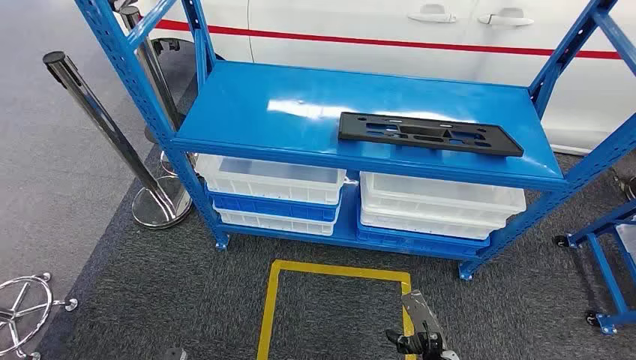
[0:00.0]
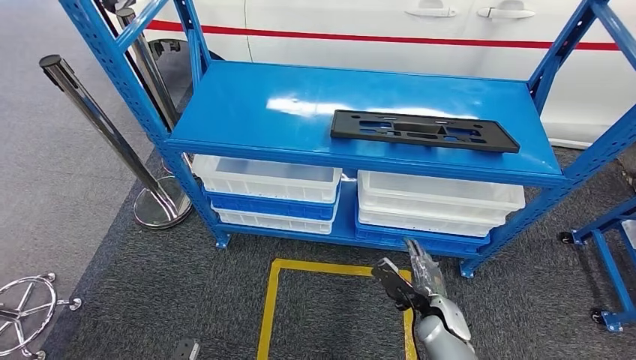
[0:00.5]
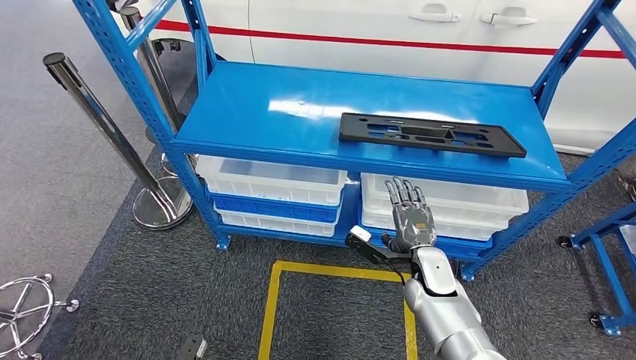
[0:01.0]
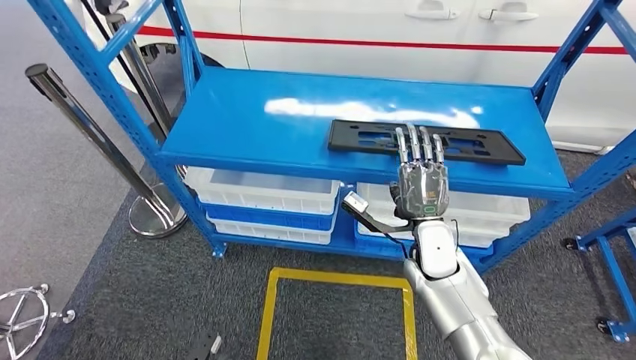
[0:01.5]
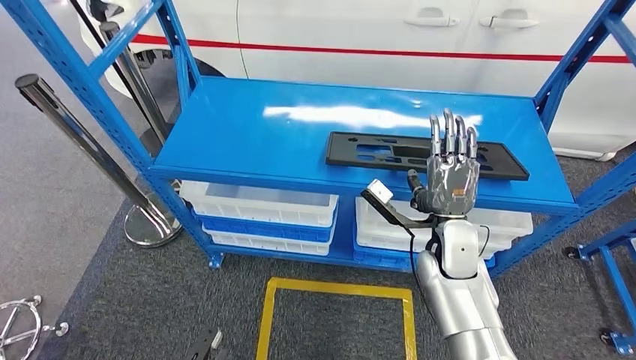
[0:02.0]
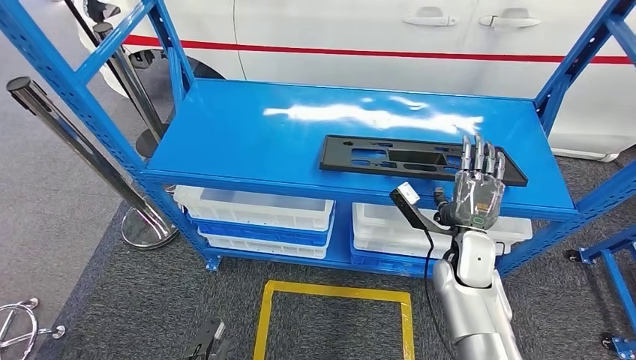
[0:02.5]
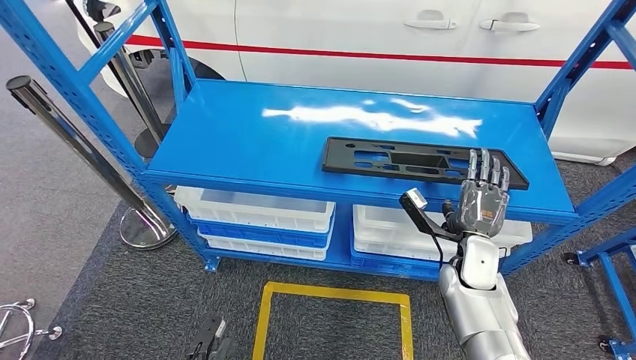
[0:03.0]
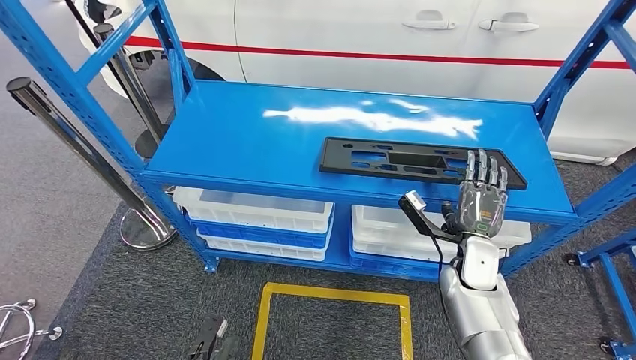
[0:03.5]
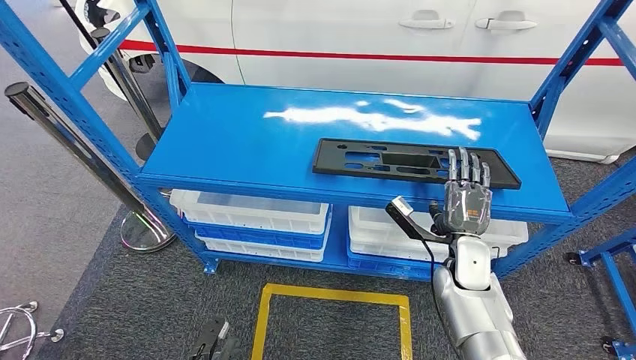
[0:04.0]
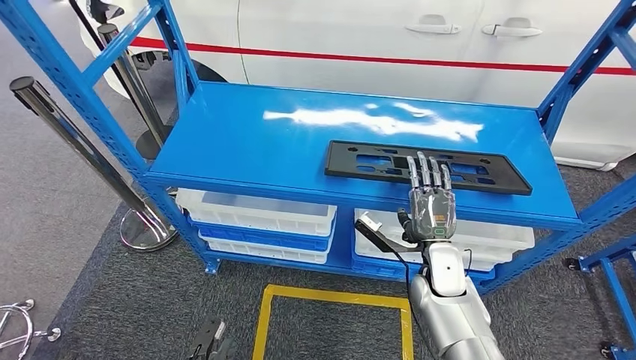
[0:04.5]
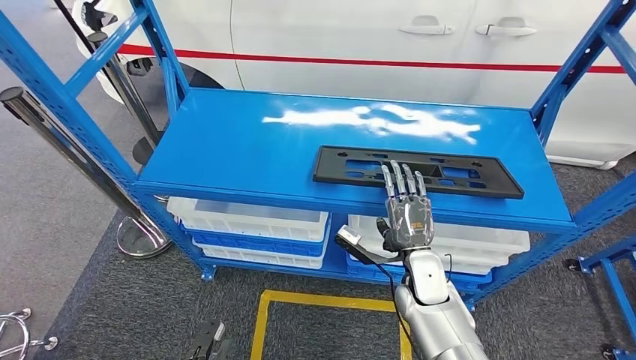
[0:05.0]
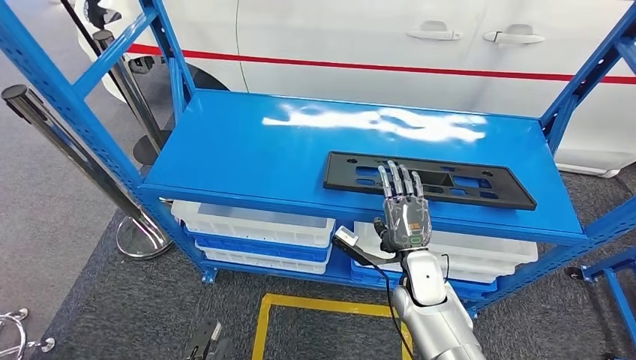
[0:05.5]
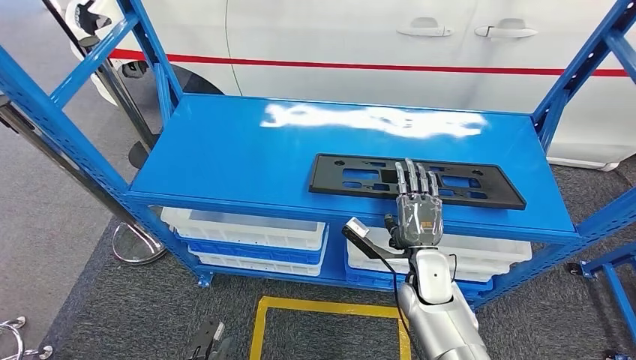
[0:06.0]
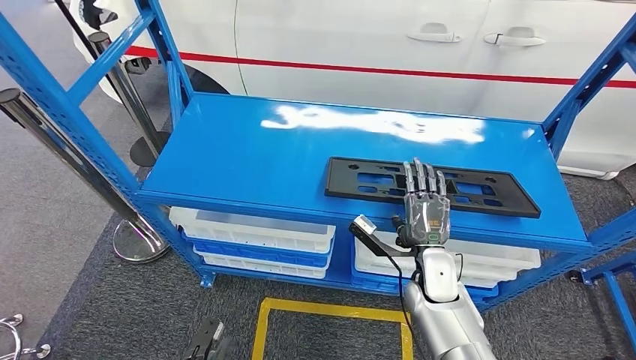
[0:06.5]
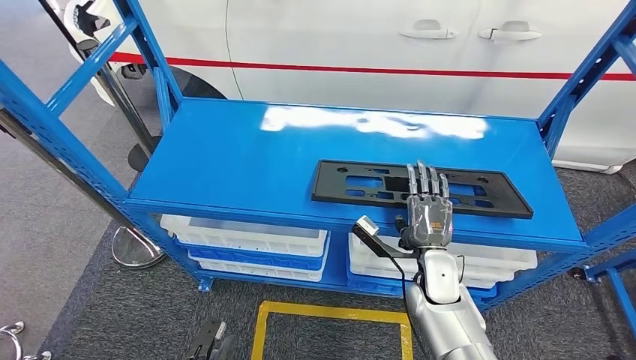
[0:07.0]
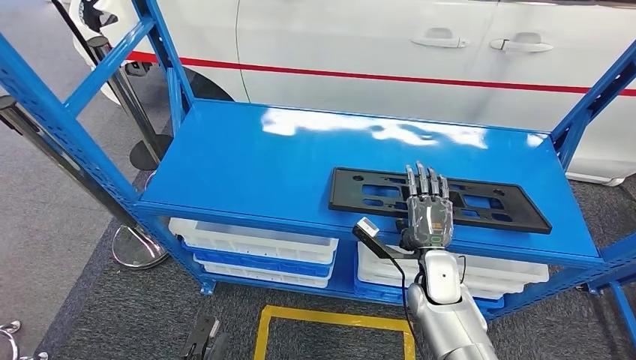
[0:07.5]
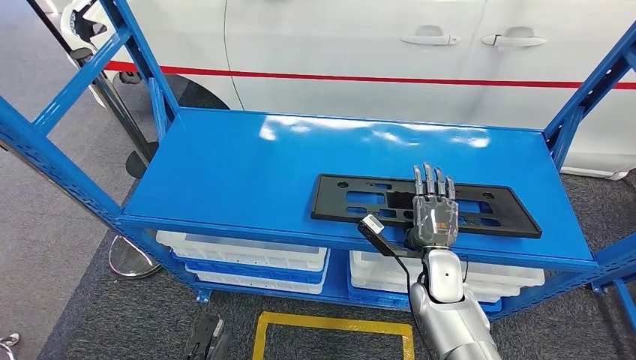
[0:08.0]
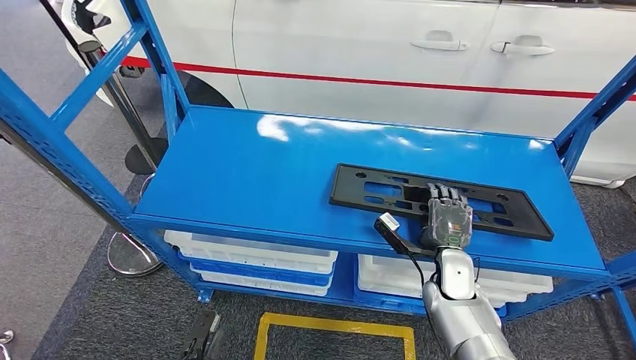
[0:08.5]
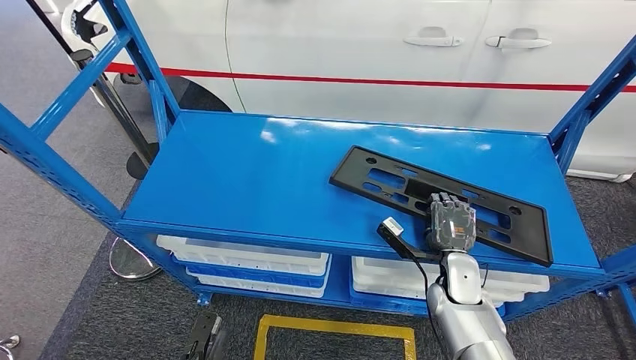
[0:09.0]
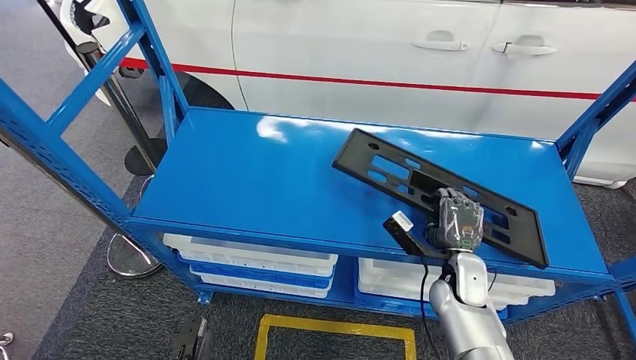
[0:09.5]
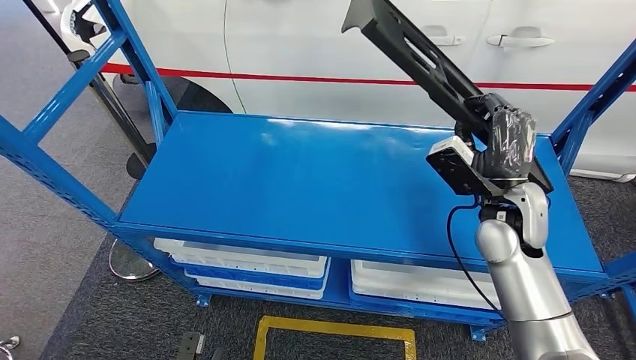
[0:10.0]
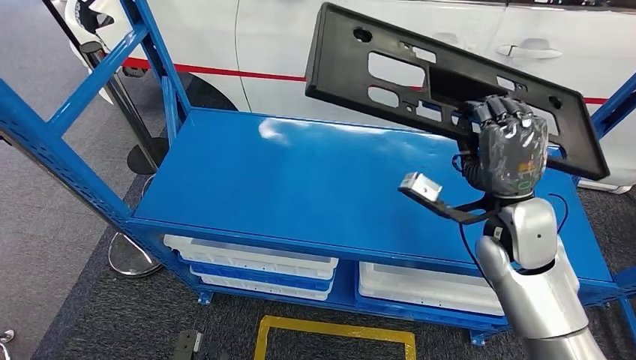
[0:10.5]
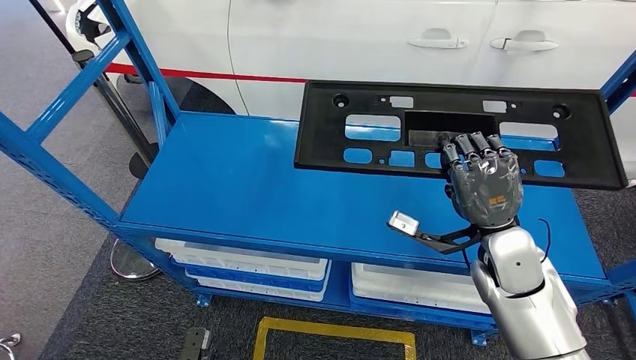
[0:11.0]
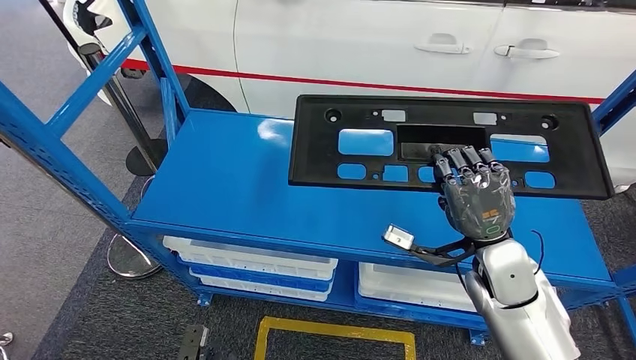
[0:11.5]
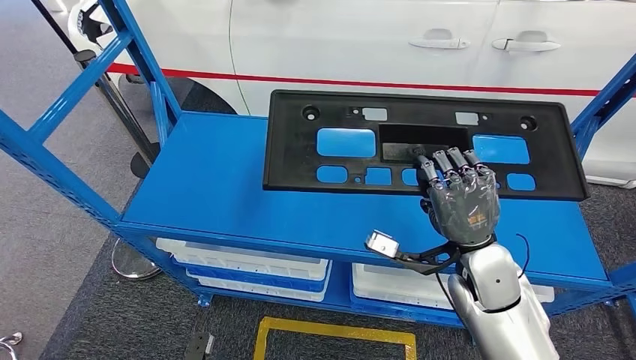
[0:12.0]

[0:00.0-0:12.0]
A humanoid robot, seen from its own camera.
Step, 0:00.0 to 0:10.5: Pick up the large material from the shelf.

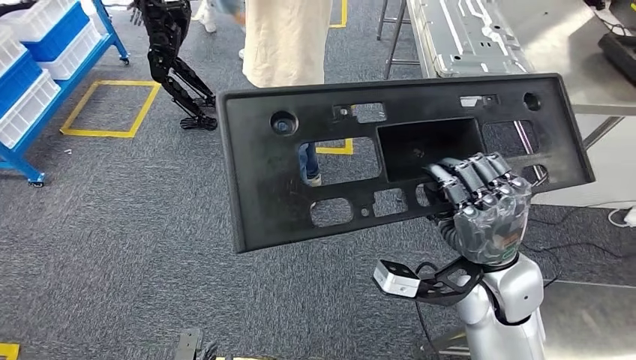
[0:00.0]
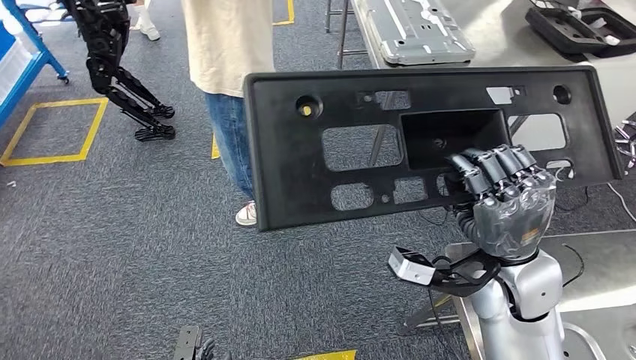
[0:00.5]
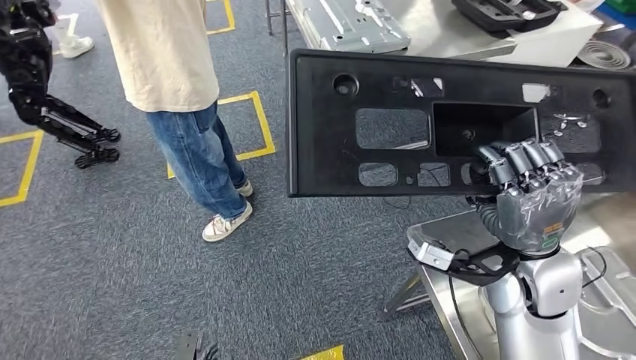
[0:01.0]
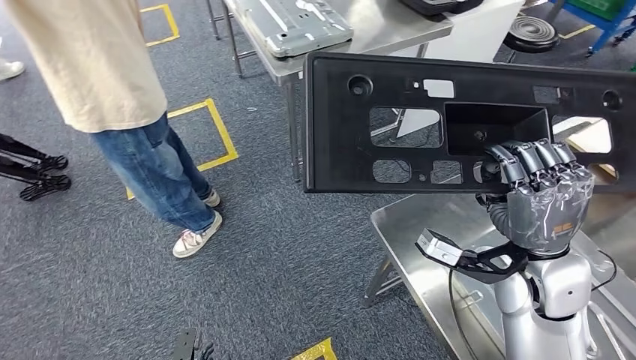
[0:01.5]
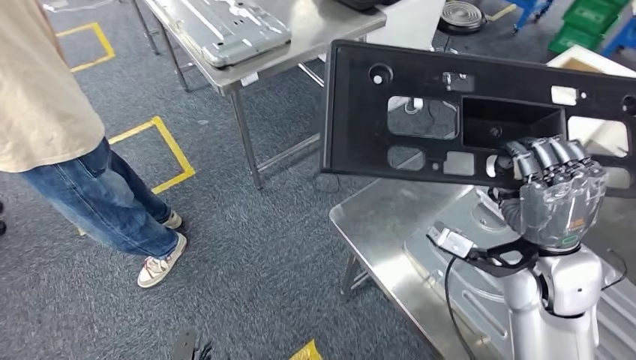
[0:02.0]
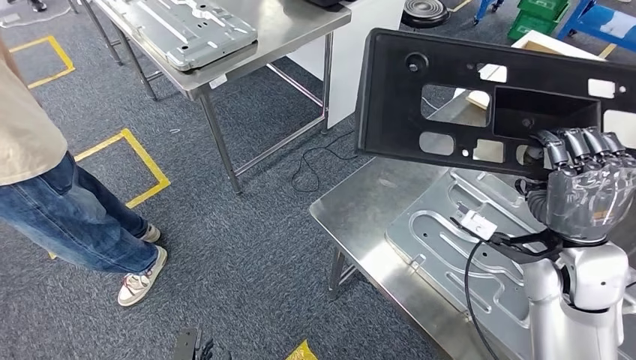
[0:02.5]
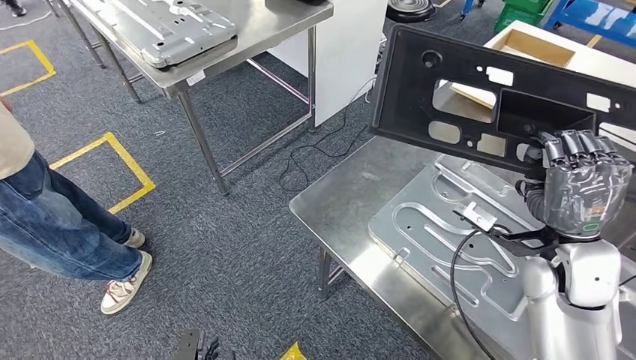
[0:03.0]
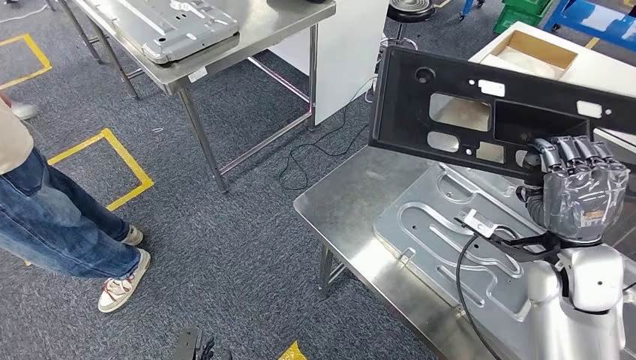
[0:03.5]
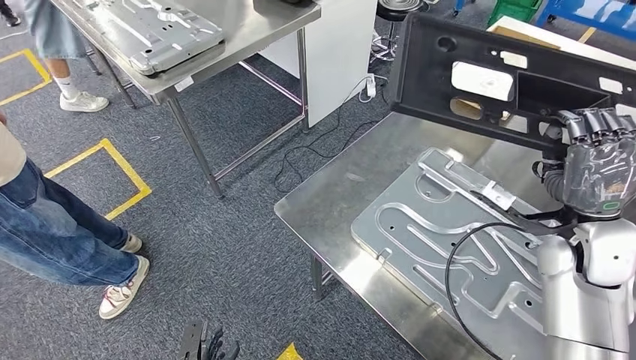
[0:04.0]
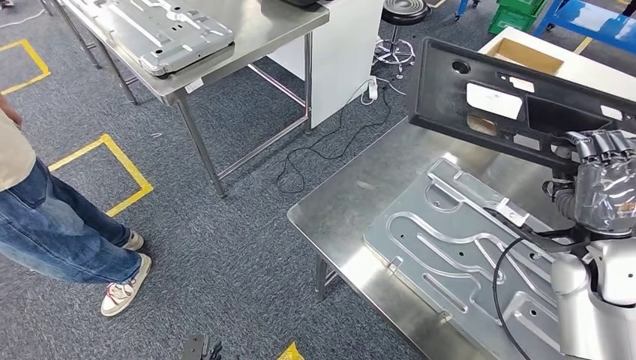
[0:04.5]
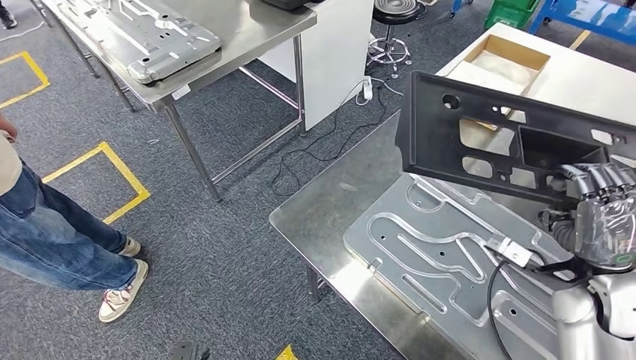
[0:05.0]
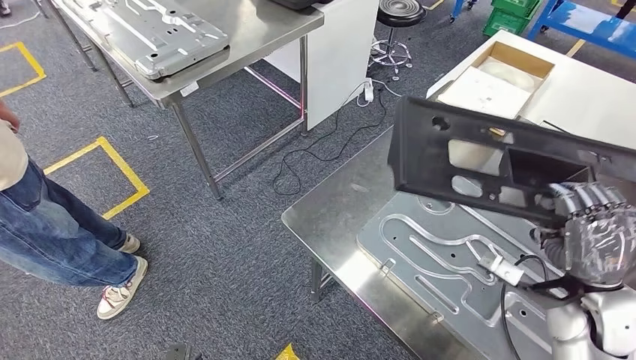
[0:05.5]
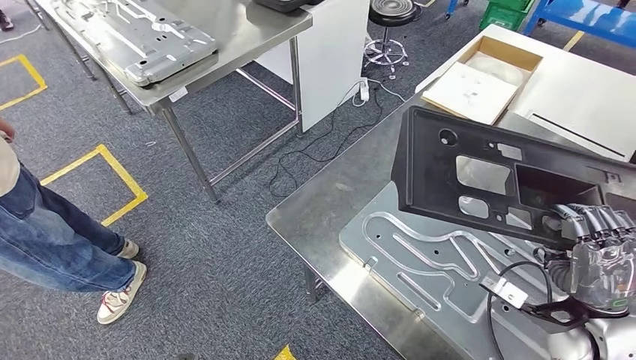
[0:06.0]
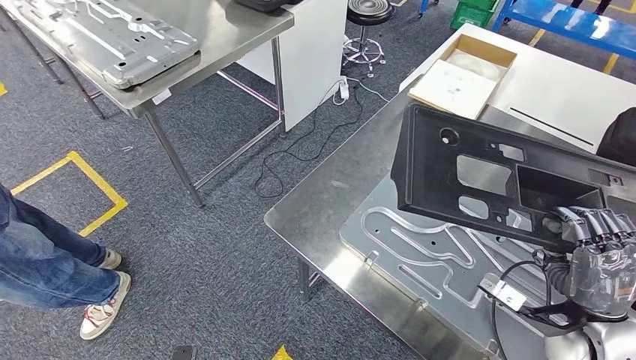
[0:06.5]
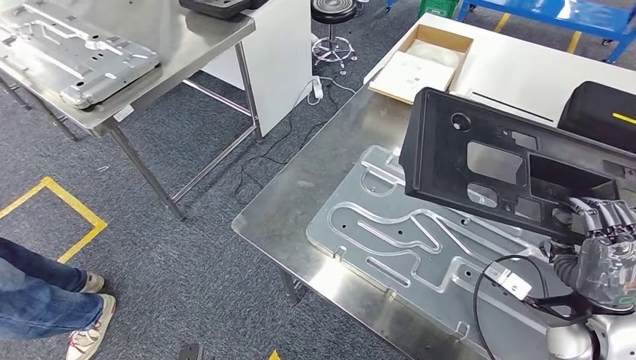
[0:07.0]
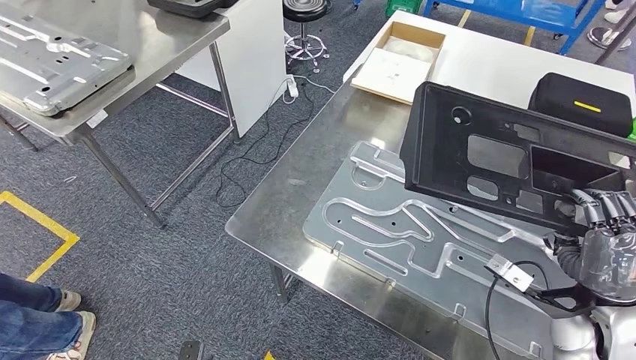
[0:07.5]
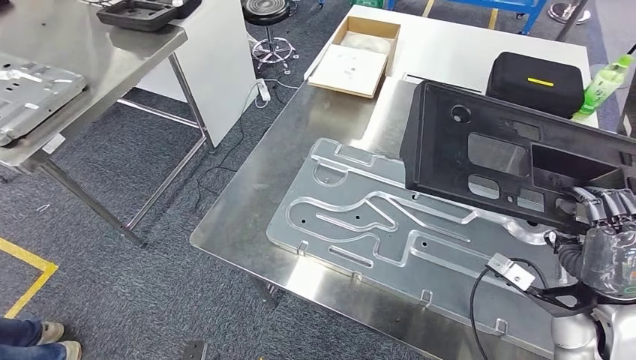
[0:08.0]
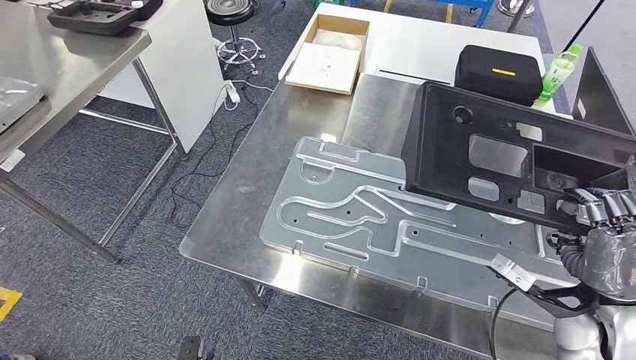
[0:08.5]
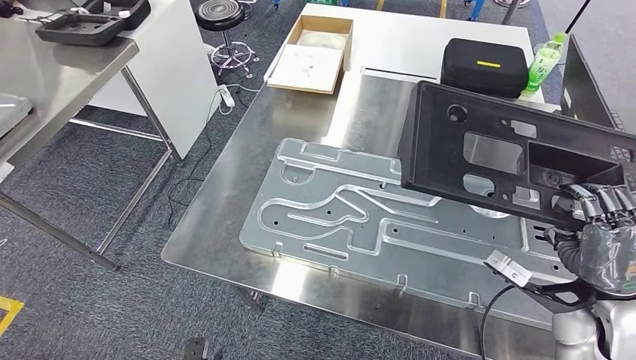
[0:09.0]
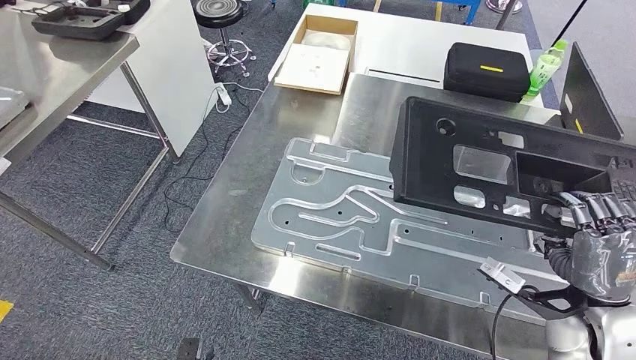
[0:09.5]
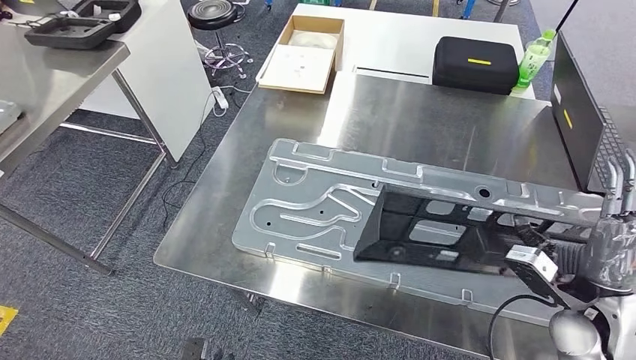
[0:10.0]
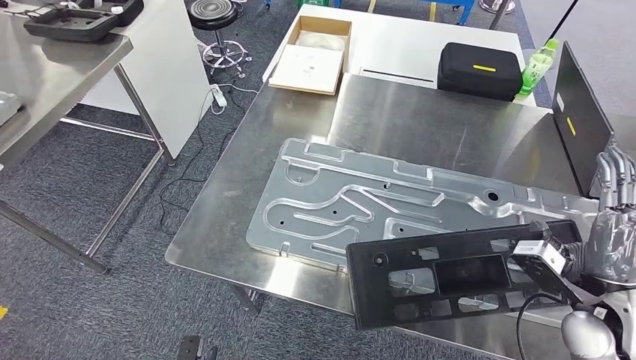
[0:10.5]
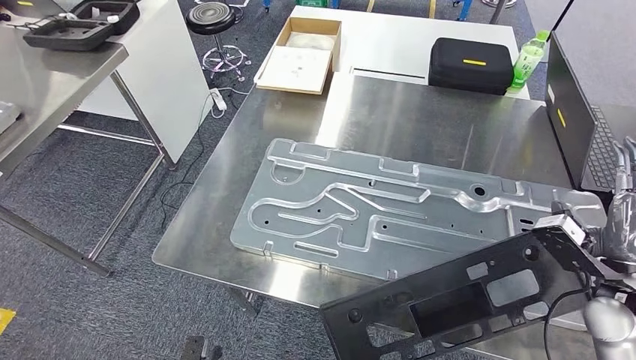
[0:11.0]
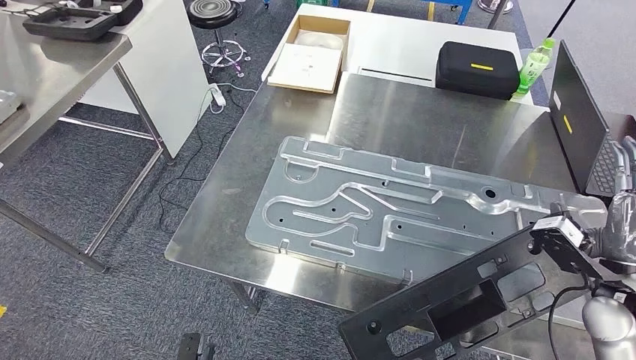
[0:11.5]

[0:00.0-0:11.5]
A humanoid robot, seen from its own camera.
Step, 0:00.0 to 0:02.5: Move the large material to the workbench.
Step, 0:04.0 to 0:10.0: Insert the large material into the corresponding slot on the workbench.
